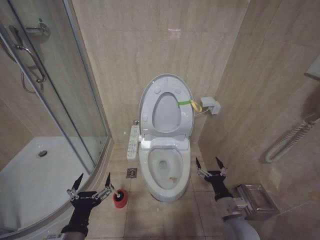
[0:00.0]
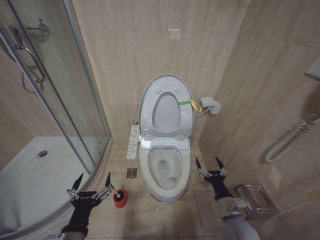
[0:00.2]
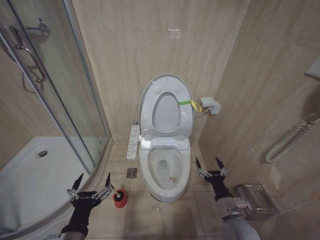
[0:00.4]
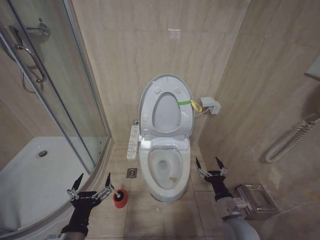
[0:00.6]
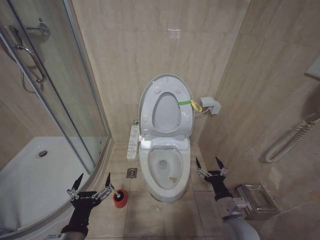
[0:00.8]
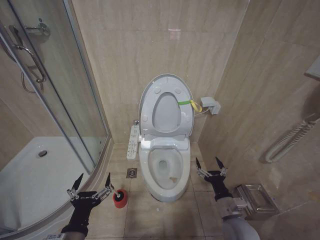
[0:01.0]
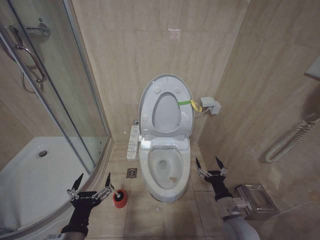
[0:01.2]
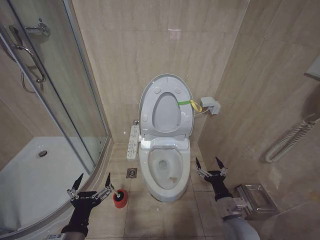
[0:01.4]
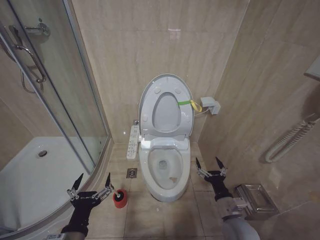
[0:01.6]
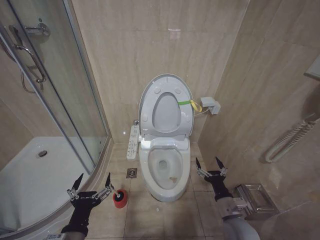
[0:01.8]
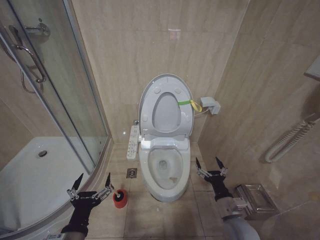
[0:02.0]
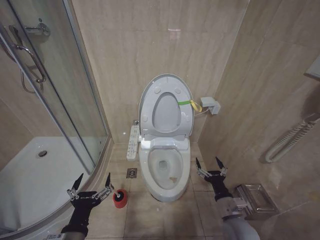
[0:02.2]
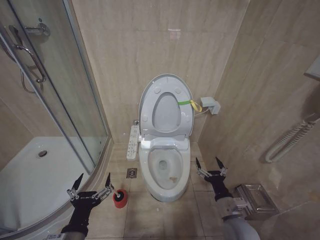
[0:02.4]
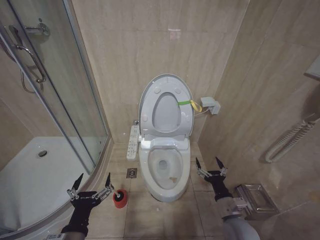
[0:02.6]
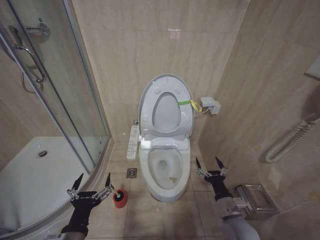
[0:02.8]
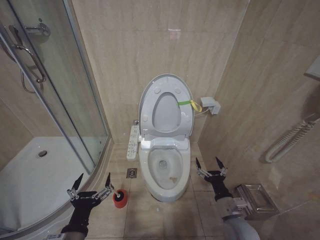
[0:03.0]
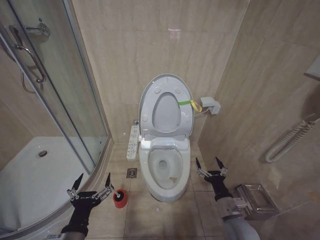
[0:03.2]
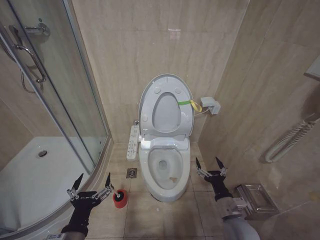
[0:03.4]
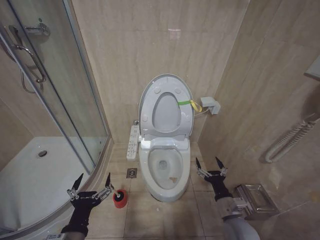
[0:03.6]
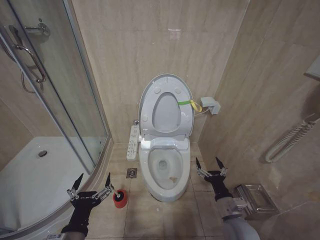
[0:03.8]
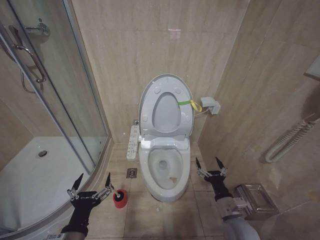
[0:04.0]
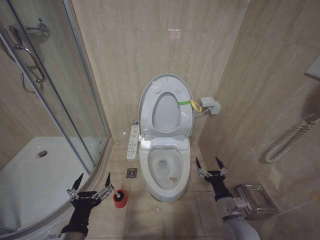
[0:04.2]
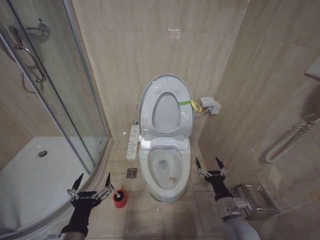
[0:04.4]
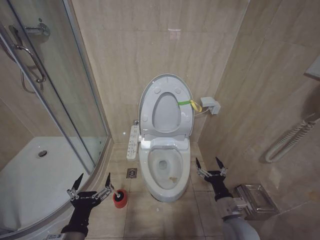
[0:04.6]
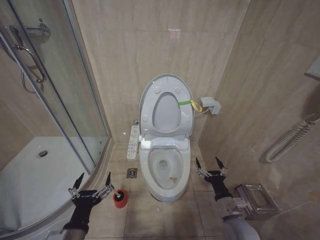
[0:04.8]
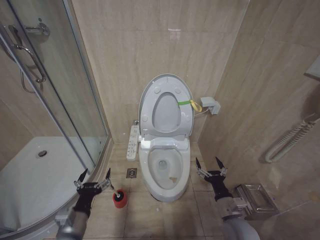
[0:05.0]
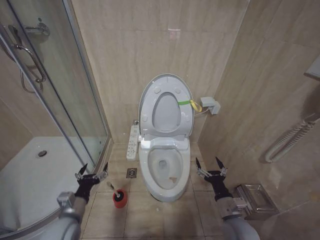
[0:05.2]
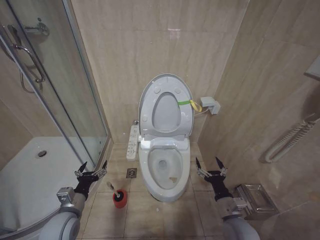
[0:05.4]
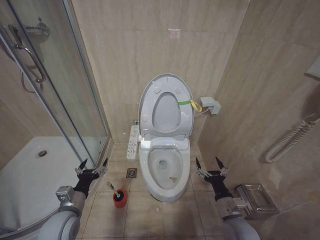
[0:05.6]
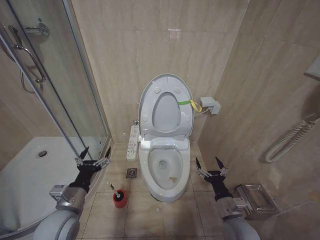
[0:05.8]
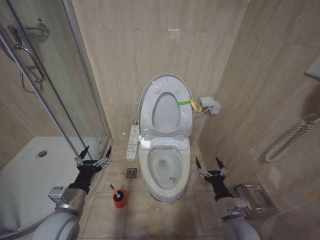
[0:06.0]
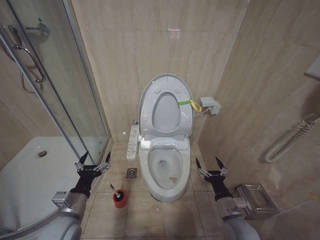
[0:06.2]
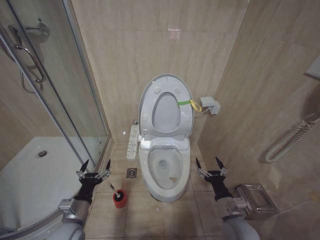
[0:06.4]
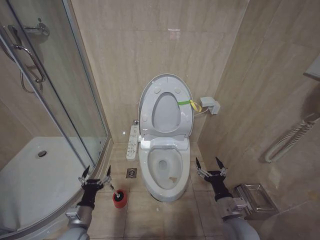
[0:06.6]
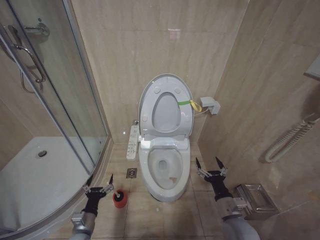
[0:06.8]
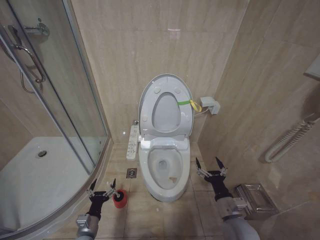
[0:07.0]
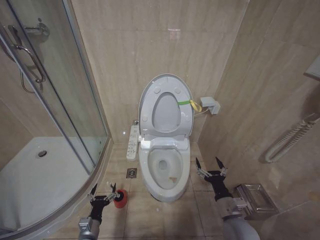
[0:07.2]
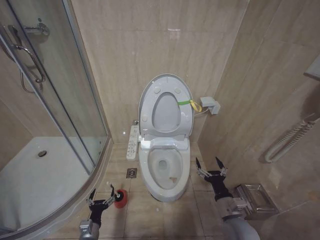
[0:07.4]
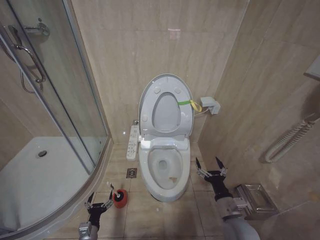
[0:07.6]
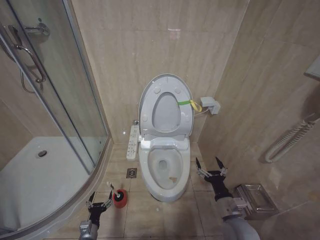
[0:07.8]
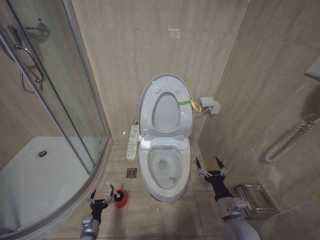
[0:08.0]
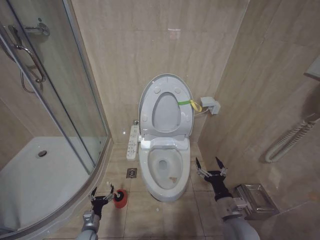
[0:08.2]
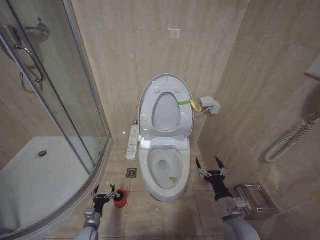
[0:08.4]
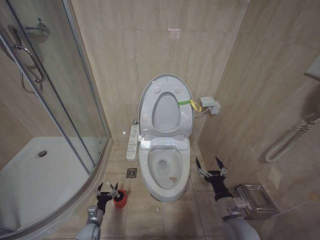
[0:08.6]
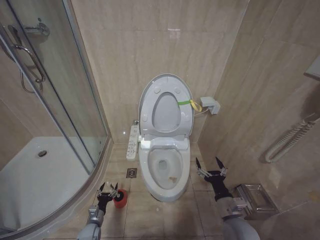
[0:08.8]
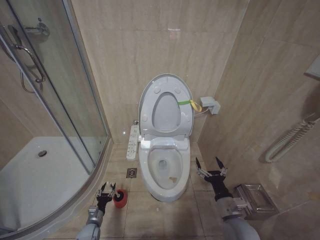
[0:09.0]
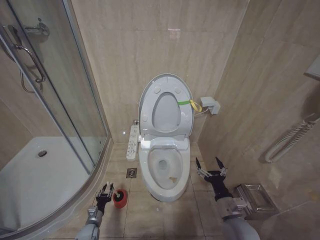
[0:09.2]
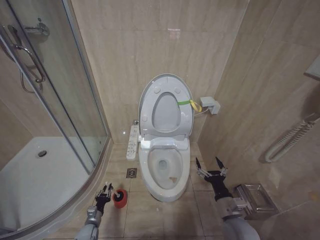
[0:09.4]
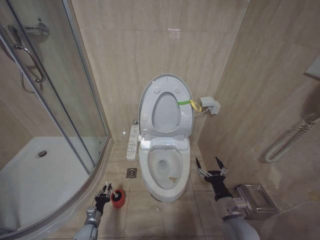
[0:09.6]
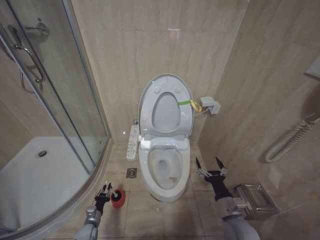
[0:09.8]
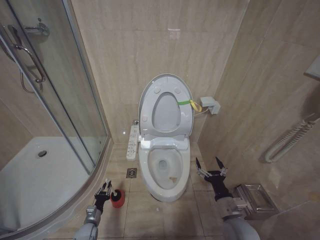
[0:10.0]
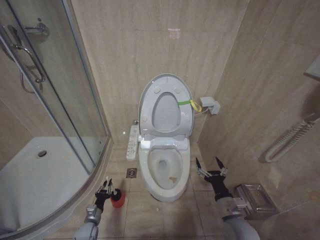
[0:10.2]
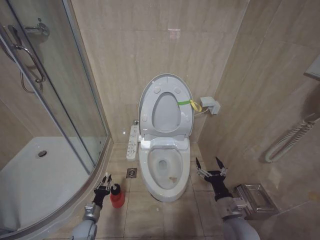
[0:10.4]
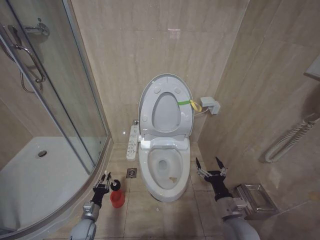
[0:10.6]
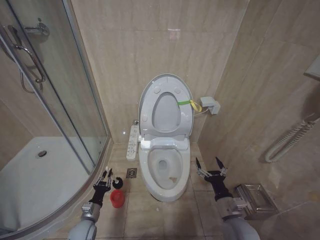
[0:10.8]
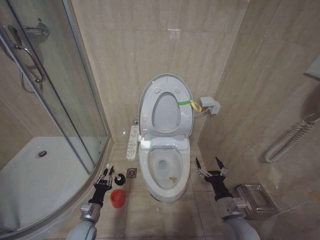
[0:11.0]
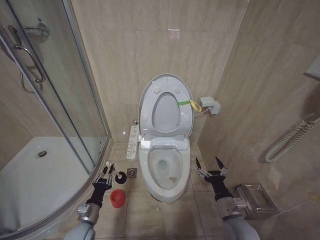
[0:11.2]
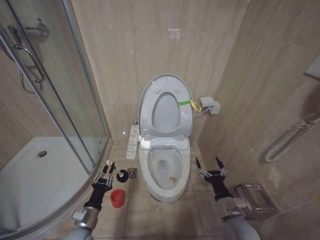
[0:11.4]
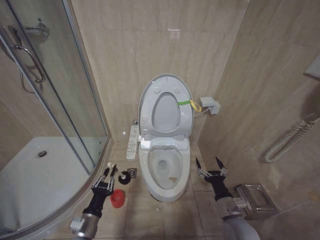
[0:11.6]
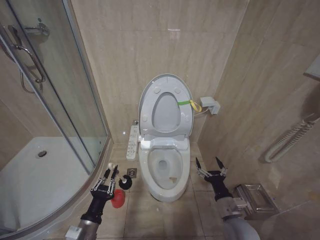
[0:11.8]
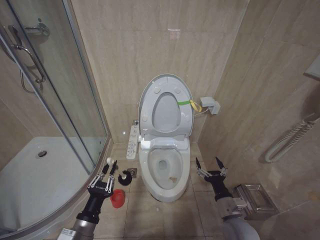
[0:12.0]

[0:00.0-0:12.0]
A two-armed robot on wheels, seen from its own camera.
Task of the whole recording: Open the toilet lid, clean the toilet bowl with a toilet brush, close the toilet lid, and flush.
0:00.0 to 0:04.4: Both grippers stay put.
0:04.4 to 0:06.0: The left gripper is displaced forward by approximately 10 cm.
0:06.0 to 0:07.6: The left gripper travels downward by about 30 cm.
0:07.6 to 0:09.0: The left gripper is displaced forward and downward by some 10 cm.
0:09.0 to 0:10.4: The left gripper closes its fingers.
0:10.4 to 0:12.0: The left gripper moves upward and backward, some 30 cm.

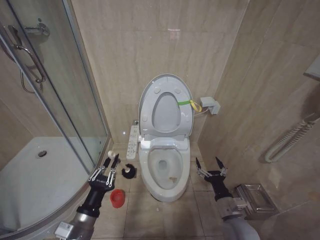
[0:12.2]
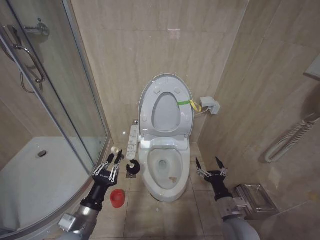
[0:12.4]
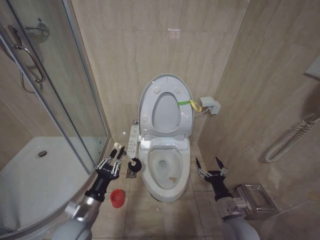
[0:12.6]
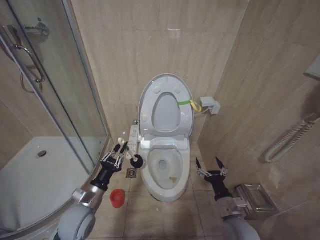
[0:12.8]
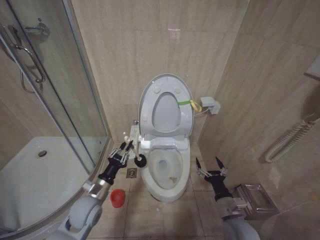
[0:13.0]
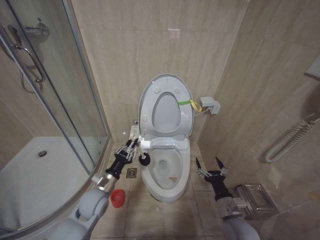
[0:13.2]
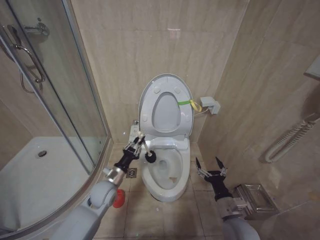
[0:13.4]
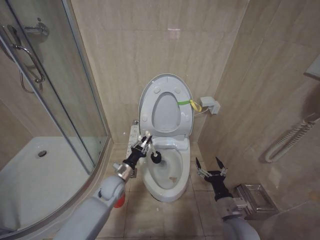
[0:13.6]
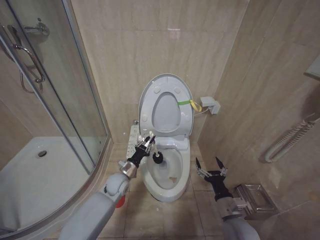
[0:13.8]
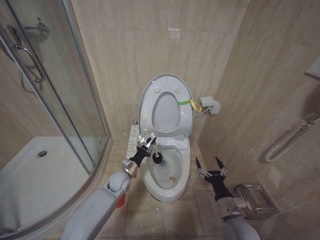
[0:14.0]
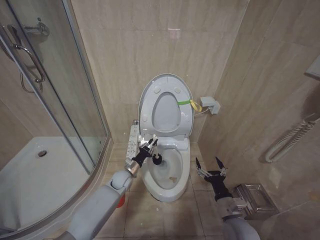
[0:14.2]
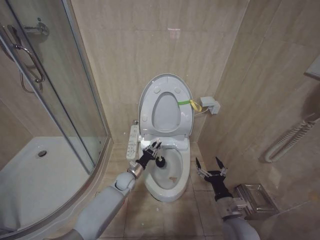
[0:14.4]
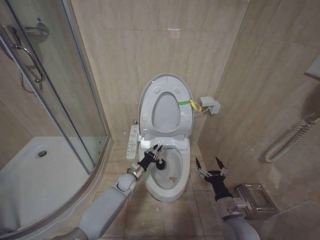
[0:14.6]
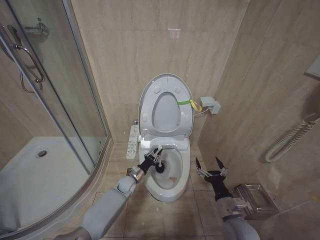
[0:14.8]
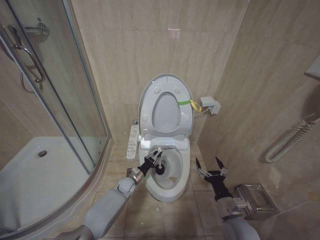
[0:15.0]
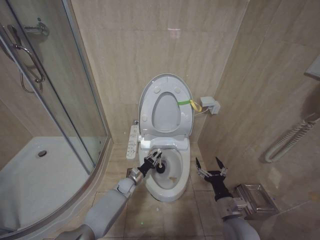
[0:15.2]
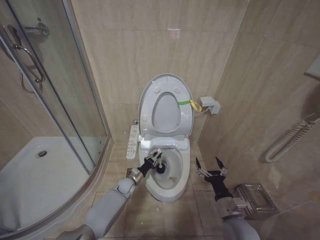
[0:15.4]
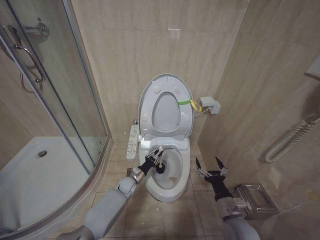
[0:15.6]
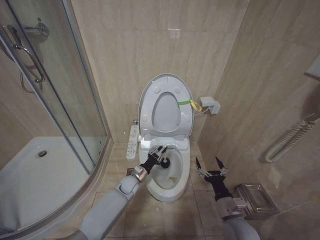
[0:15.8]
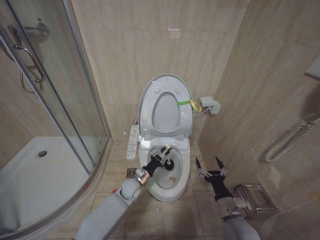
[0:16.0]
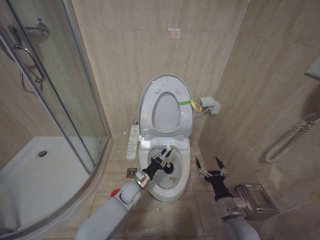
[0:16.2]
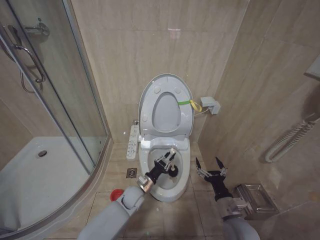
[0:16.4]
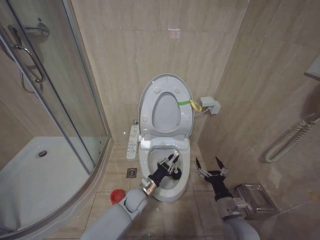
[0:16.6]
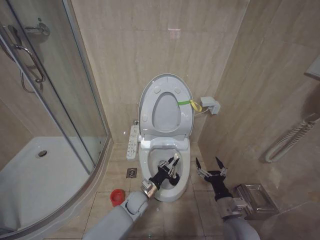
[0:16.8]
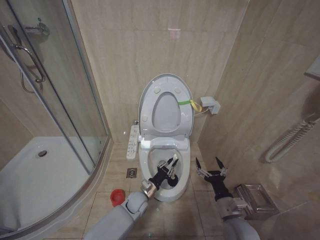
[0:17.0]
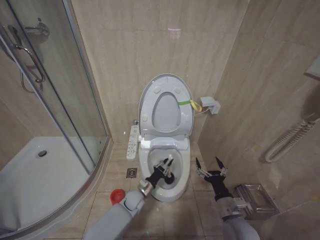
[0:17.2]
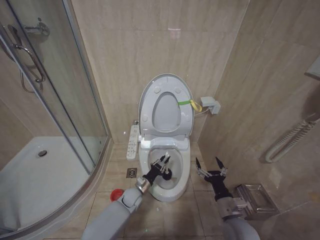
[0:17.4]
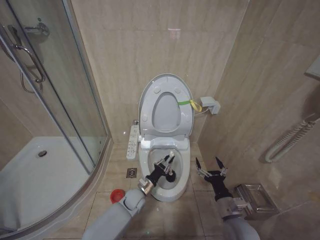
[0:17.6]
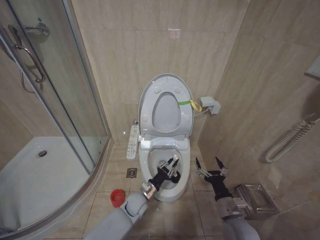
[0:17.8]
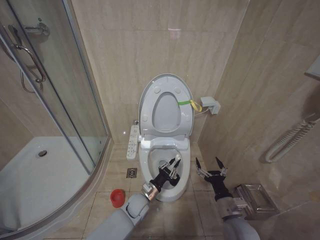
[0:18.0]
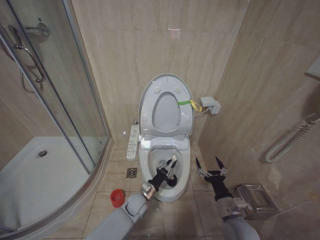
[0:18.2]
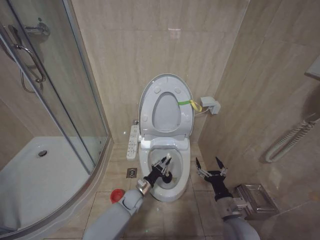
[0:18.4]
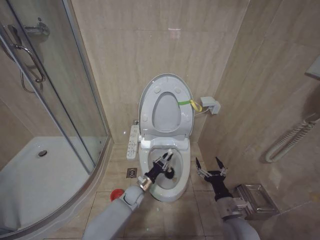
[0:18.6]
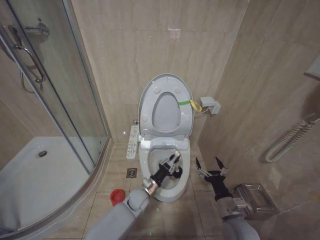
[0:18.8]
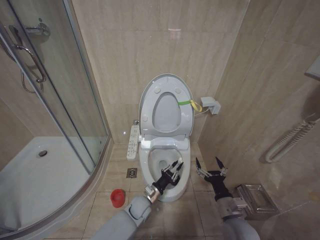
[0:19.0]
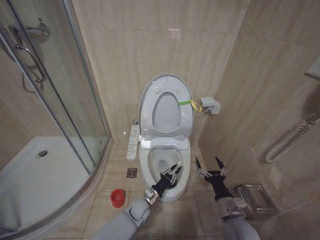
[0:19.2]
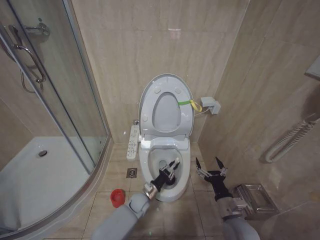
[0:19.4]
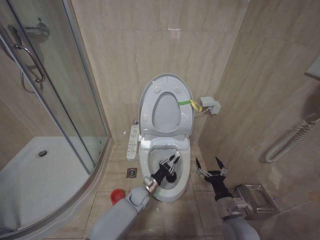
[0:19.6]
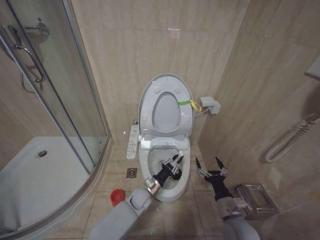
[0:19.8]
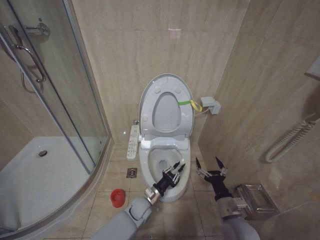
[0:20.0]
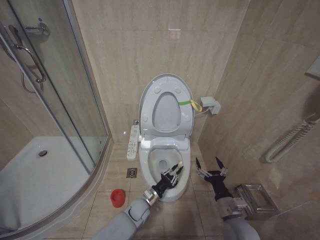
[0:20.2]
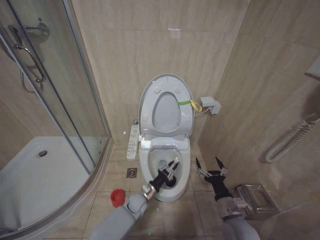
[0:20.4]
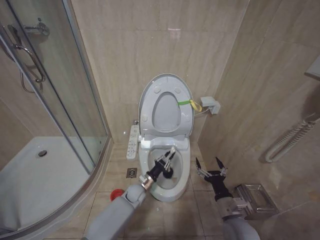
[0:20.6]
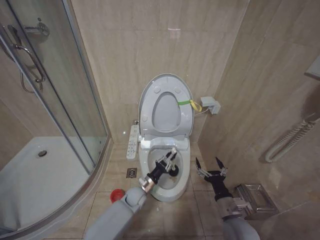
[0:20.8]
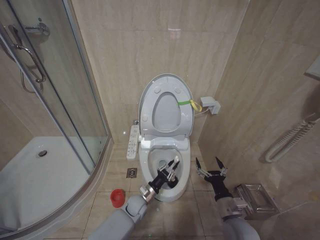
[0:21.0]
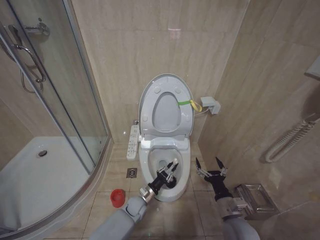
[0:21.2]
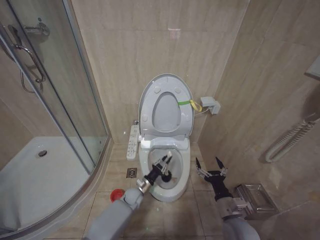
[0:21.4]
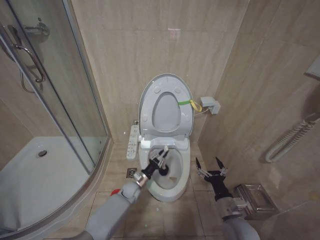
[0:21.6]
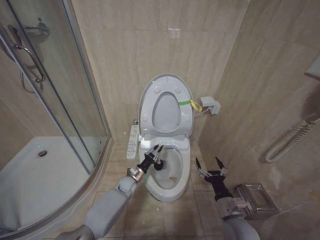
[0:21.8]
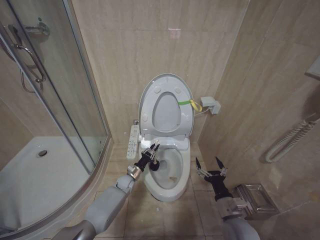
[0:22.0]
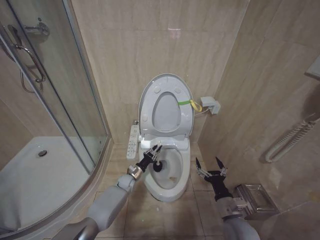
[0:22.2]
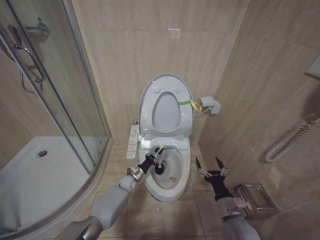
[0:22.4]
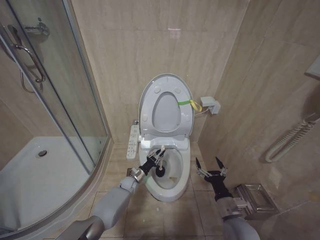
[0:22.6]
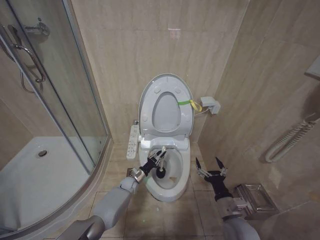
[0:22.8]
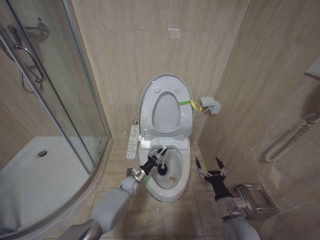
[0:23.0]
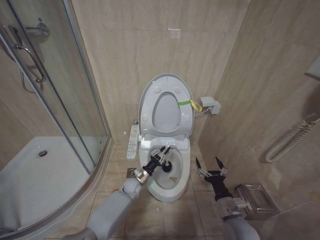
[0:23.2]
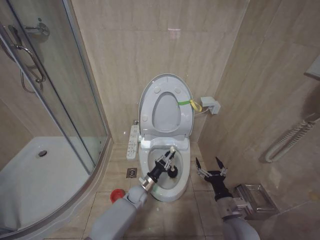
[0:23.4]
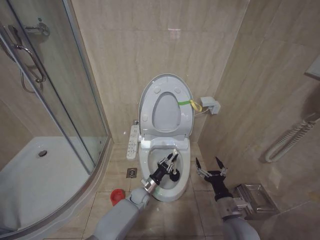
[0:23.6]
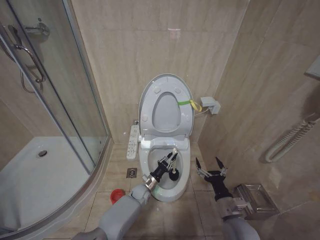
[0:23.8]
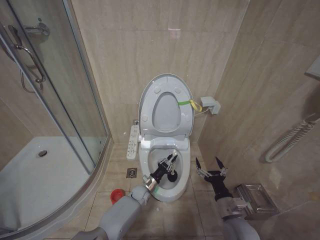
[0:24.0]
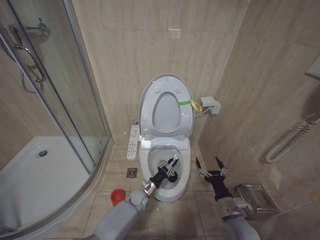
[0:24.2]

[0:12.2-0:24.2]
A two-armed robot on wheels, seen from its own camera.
Task of the whole recording: Open the toilet lid, clean the toilet bowl with a toilet brush, close the toilet lid, and flush.
0:12.2 to 0:13.8: The left gripper travels forward by approximately 25 cm.
0:13.8 to 0:15.2: The left gripper goes approximately 15 cm downward and forward.
0:15.2 to 0:16.6: The left gripper goes approximately 15 cm backward, upward and to the right.
0:18.2 to 0:19.8: The left gripper goes forward and backward, about 5 cm each way, reversing 2 times.
0:19.8 to 0:21.2: The left gripper goes forward and backward, some 5 cm each way, reversing 2 times.
0:21.2 to 0:22.6: The left gripper heads forward and to the left, covering some 15 cm.
0:22.6 to 0:24.2: The left gripper moves backward and to the right, roughly 10 cm.
